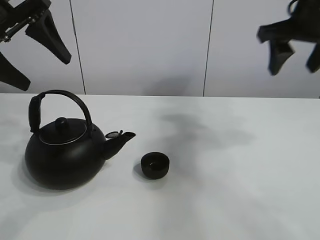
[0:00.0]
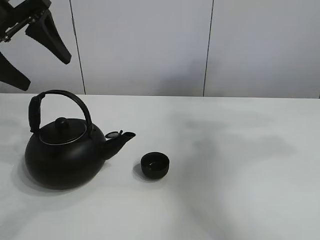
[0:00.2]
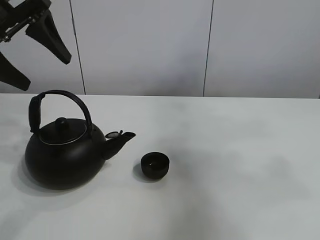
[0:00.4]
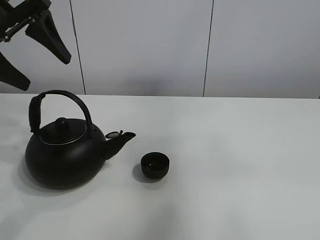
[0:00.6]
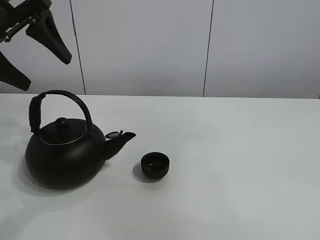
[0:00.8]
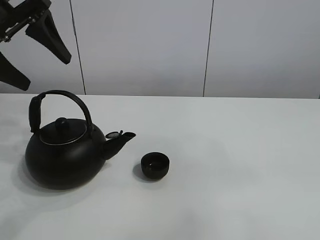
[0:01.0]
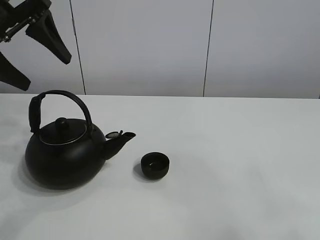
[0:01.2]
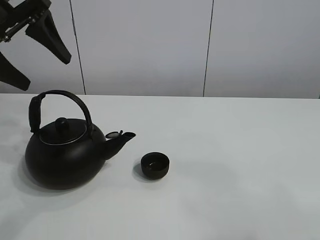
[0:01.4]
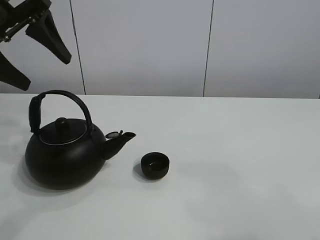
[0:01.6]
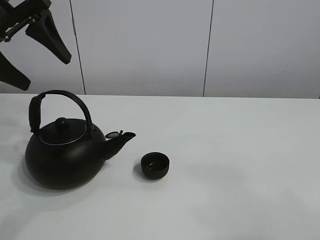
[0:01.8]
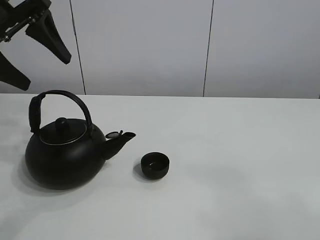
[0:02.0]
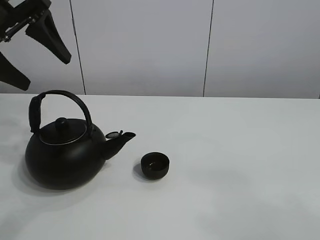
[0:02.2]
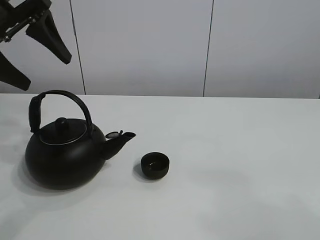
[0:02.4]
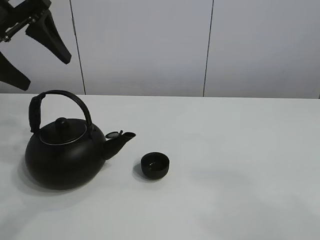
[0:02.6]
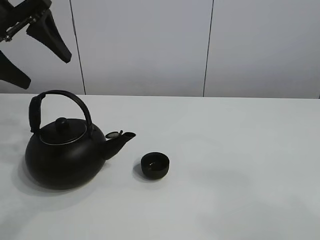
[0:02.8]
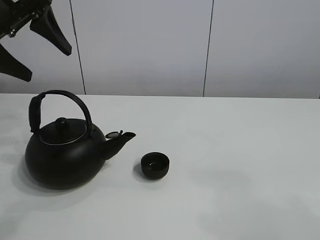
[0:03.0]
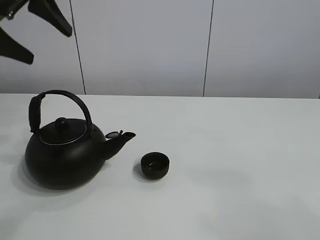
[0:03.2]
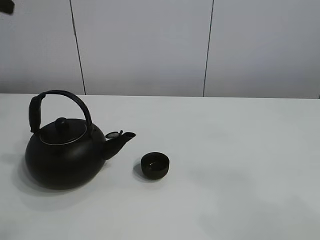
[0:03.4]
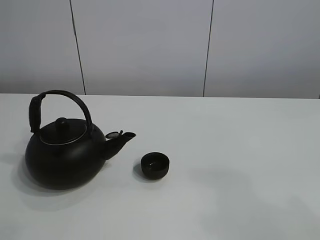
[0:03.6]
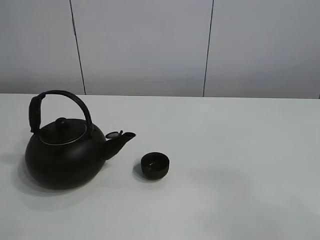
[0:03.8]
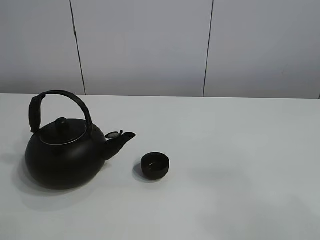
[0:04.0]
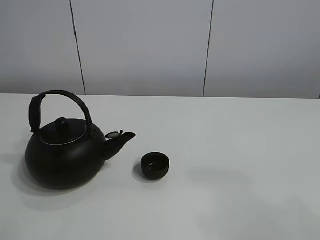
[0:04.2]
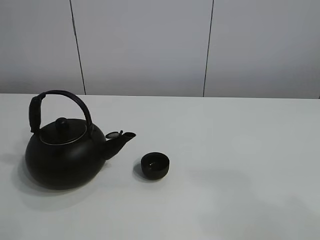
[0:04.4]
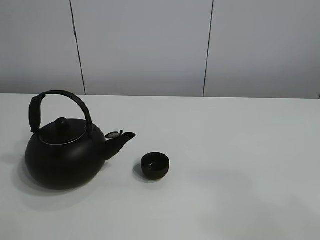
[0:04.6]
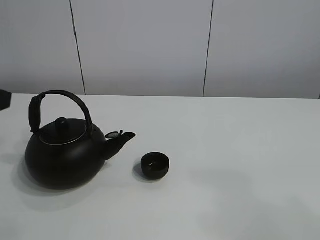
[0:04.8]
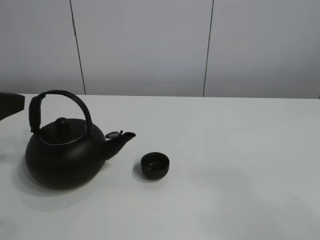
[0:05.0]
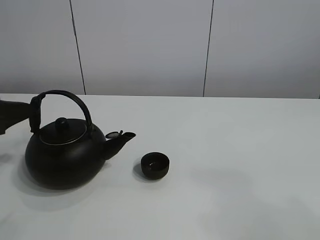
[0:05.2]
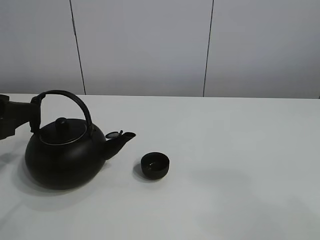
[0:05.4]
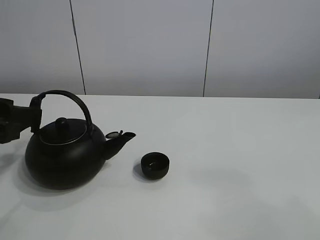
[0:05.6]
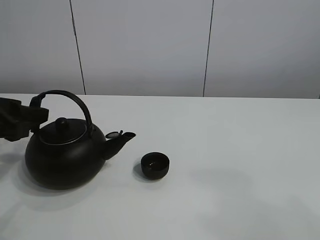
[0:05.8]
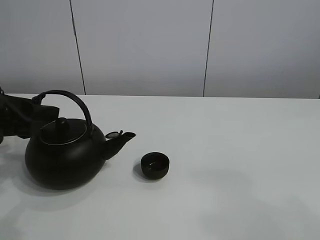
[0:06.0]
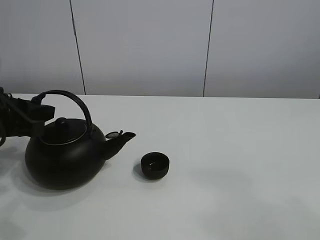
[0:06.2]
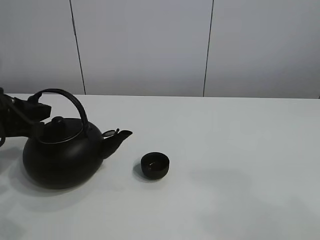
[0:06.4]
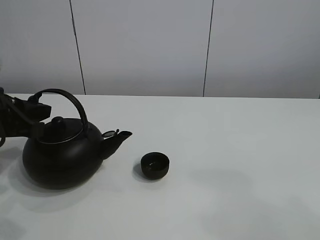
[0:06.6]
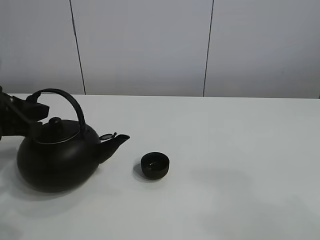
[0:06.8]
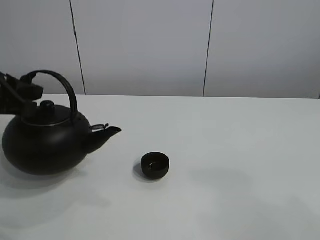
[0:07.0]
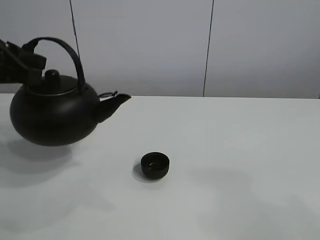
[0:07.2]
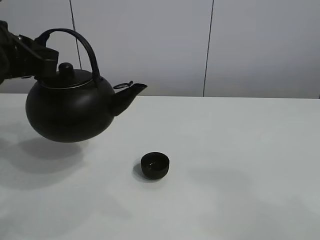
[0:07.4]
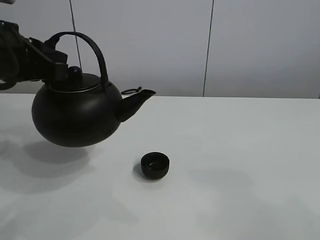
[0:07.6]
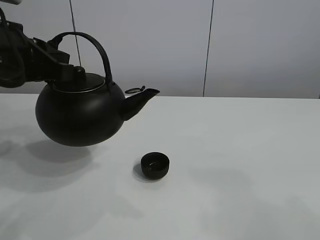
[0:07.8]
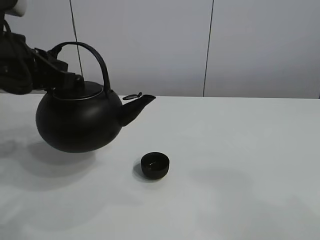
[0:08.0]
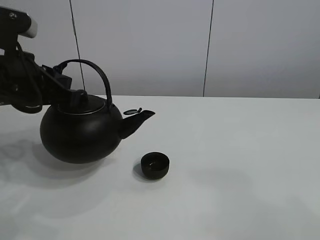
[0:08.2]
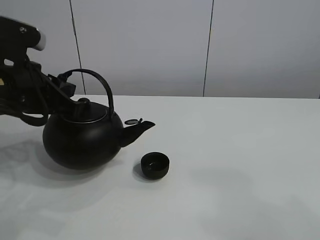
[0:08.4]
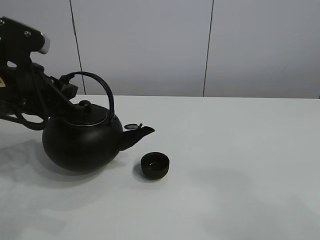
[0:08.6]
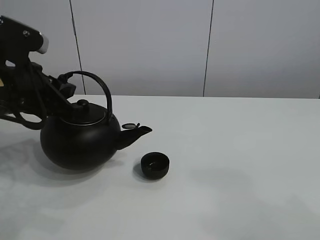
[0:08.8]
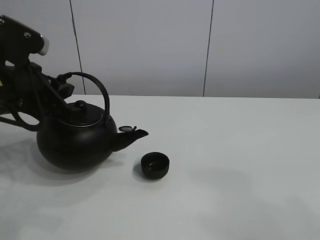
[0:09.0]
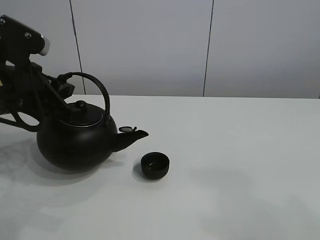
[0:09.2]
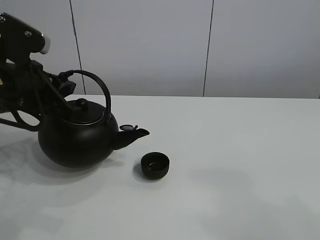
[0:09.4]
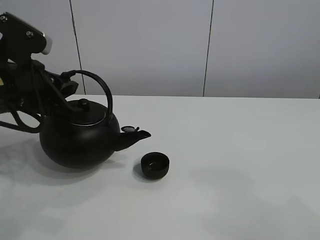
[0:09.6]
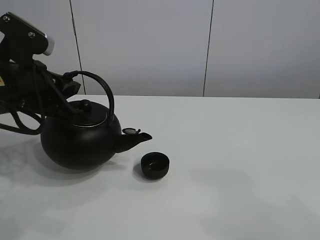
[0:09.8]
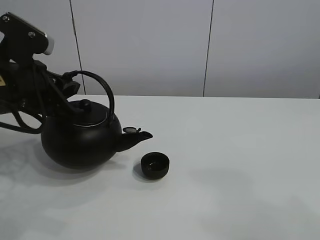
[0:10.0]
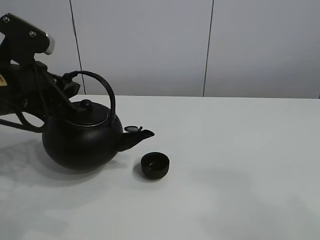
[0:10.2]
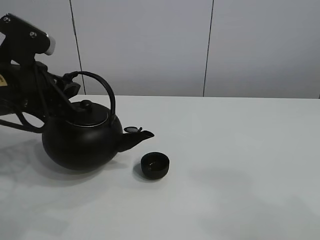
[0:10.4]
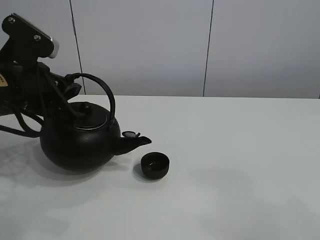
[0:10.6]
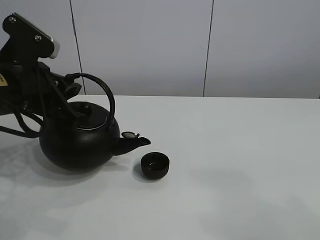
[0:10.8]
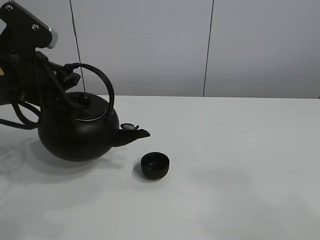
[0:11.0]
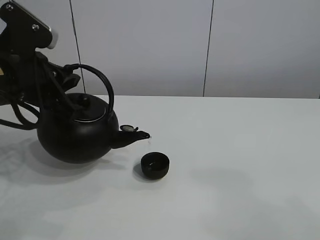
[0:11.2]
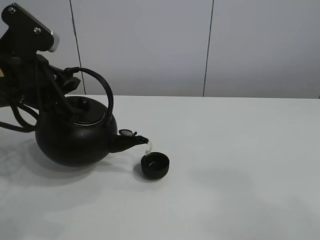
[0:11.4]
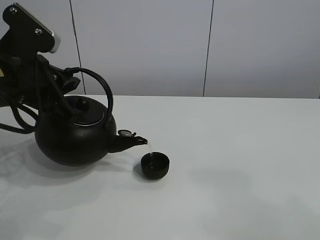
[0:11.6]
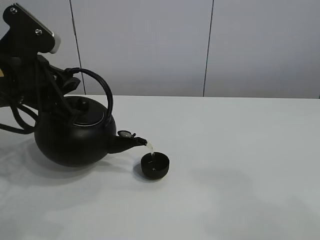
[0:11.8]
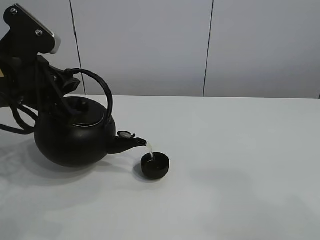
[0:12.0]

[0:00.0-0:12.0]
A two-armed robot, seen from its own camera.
Task of the whole recording: pour tea into the teacup.
Step, 0:00.0 to 0:06.4: Pick up the teapot with the left gripper.
0:00.0 to 0:01.6: The right gripper heads backward, covering some 40 cm.
0:01.6 to 0:03.0: The grippers stay close to where they were, moving slightly.
0:03.0 to 0:04.4: The left gripper travels backward by approximately 20 cm.
0:04.4 to 0:06.0: The left gripper moves downward and forward, about 20 cm.
0:06.0 to 0:07.6: The left gripper shifts approximately 10 cm upward, and closes.
0:07.6 to 0:09.0: The left gripper heads downward, covering about 5 cm.
0:09.0 to 0:12.0: There are only small adjustments of the grippers.

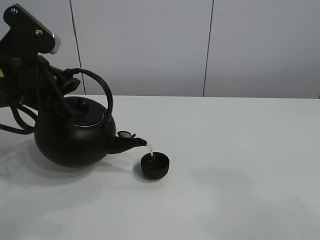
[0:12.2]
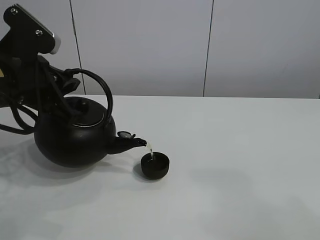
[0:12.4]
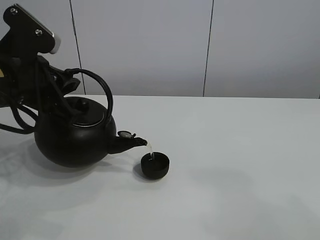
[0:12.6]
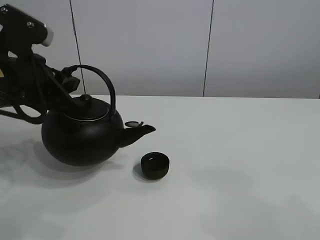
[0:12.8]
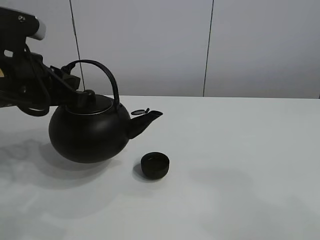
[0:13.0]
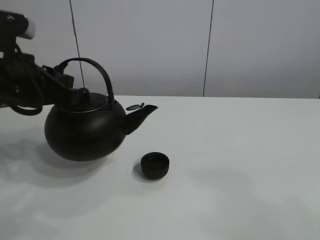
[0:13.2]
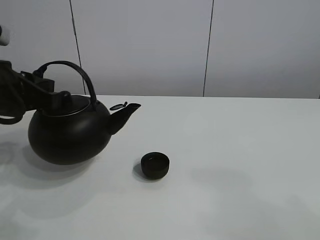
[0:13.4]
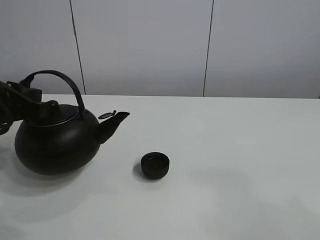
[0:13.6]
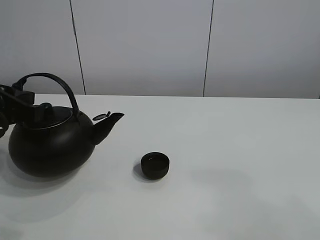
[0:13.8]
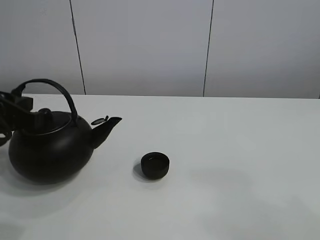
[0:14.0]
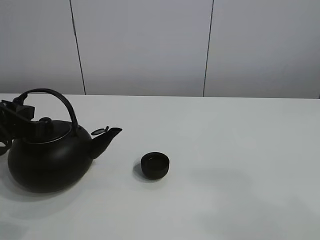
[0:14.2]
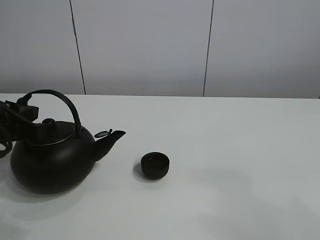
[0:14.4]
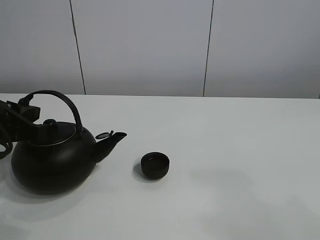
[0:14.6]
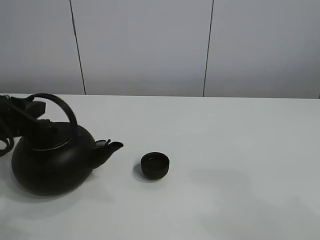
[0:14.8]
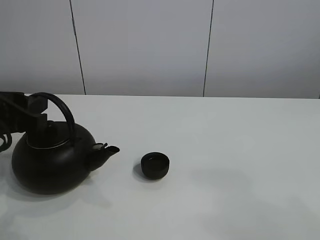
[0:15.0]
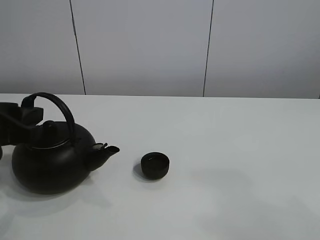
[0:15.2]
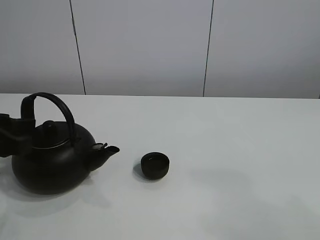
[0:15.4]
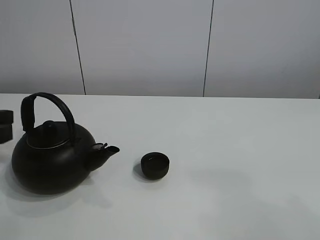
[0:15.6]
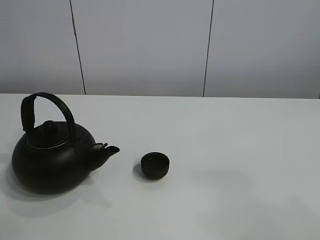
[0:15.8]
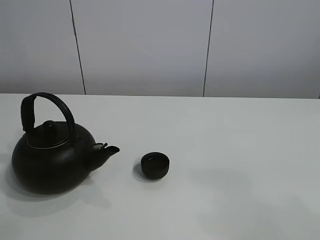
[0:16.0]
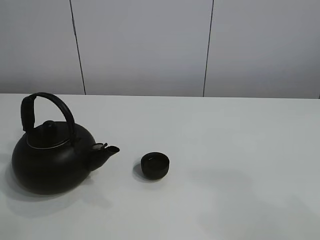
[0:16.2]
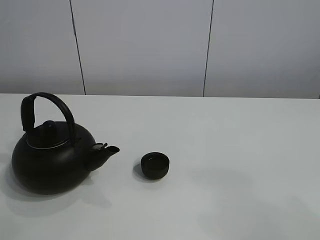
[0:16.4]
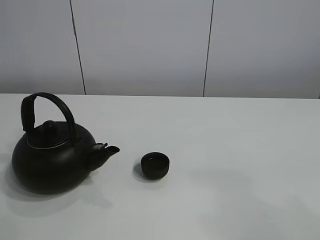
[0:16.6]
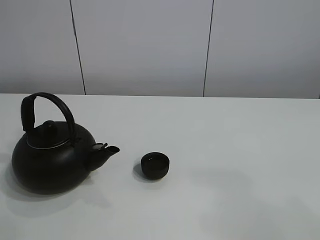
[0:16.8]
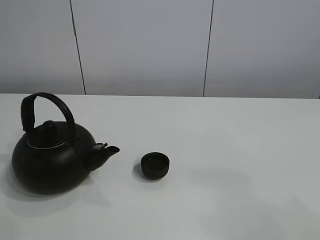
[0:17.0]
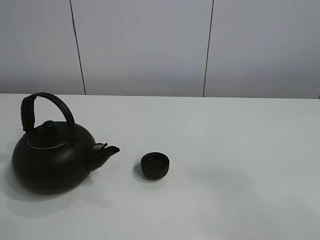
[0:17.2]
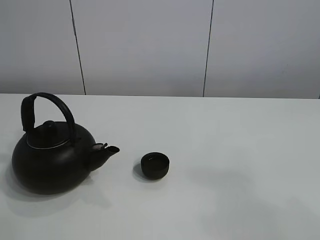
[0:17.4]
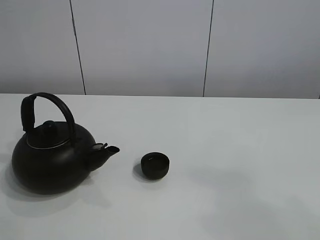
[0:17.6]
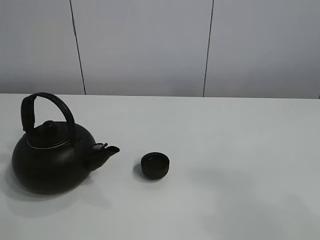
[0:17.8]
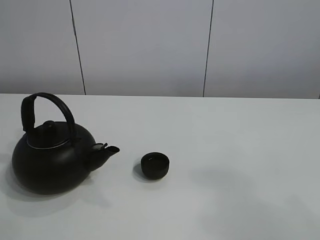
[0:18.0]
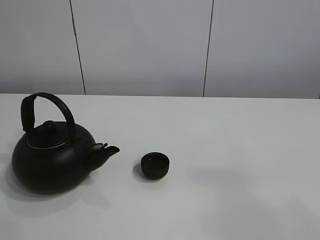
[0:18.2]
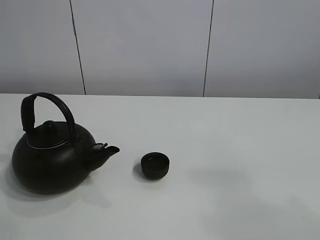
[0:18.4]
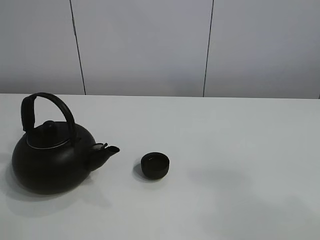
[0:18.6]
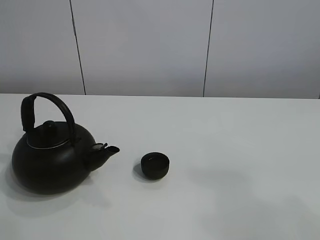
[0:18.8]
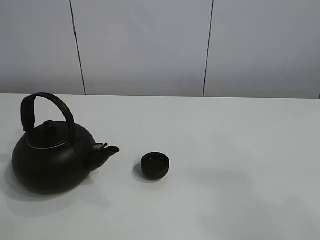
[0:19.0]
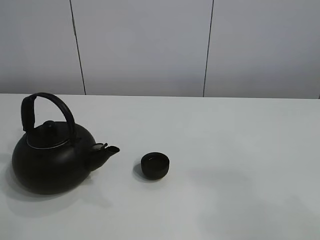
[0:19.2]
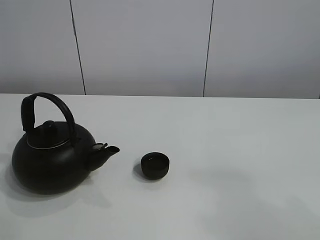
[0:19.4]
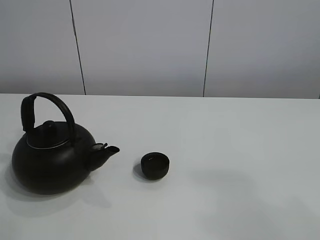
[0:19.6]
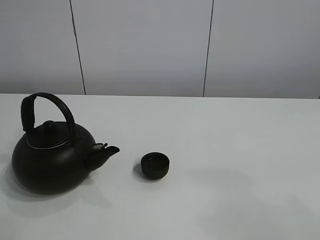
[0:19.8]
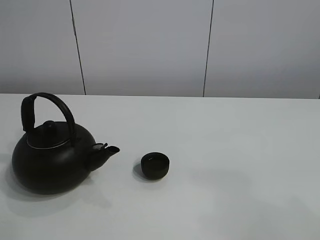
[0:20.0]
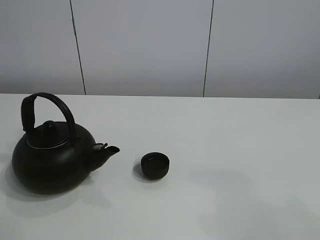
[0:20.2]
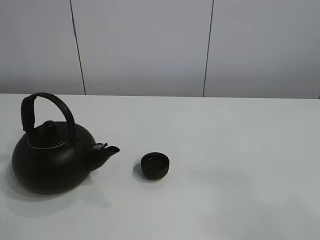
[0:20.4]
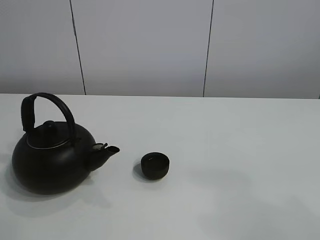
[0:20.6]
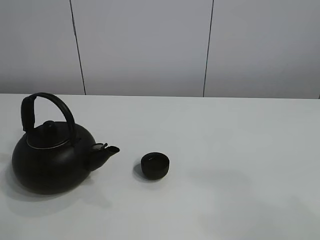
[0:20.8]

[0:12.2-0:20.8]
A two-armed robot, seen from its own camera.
Task of the whole recording: pour tea into the teacup.
0:12.2 to 0:13.6: The left gripper moves roughly 5 cm.
0:13.6 to 0:15.0: The left gripper opens up.
0:15.0 to 0:16.6: The left gripper heads to the left and upward, covering roughly 20 cm.
